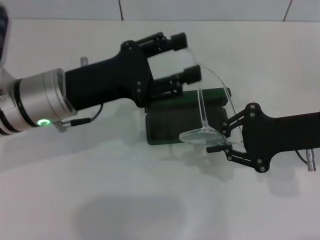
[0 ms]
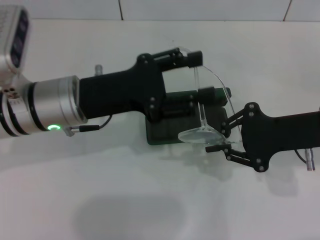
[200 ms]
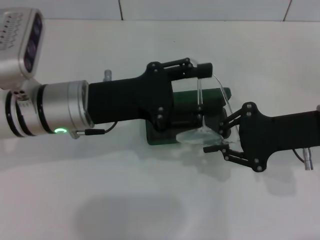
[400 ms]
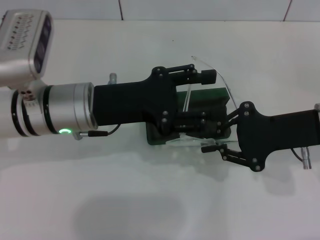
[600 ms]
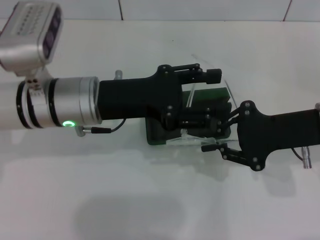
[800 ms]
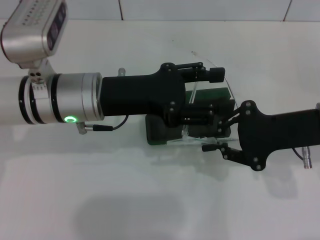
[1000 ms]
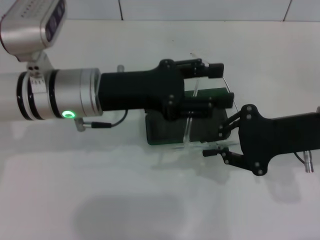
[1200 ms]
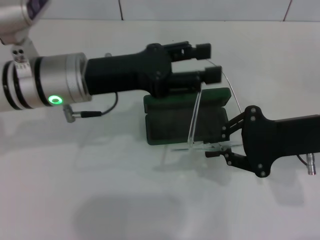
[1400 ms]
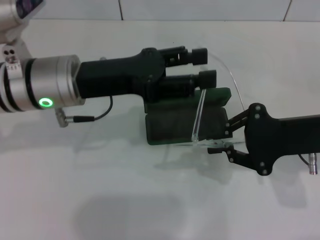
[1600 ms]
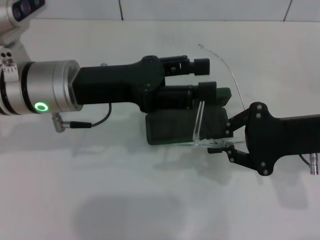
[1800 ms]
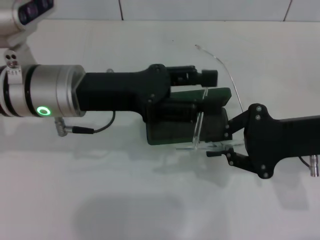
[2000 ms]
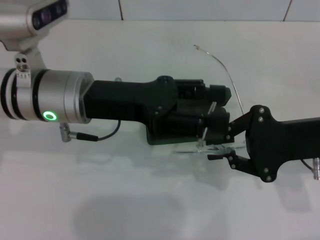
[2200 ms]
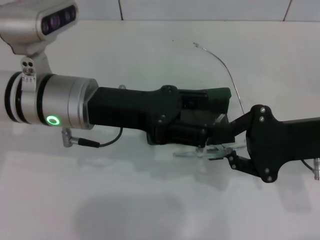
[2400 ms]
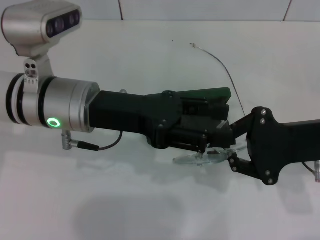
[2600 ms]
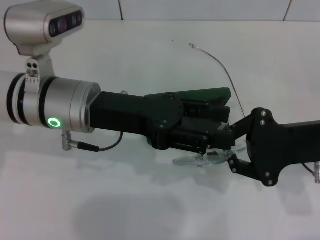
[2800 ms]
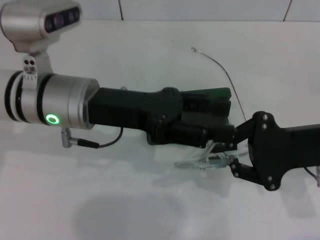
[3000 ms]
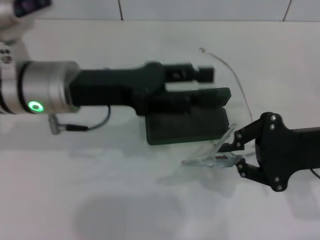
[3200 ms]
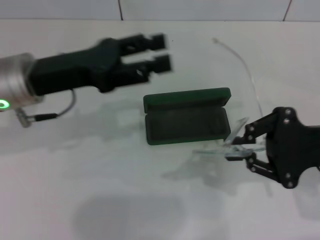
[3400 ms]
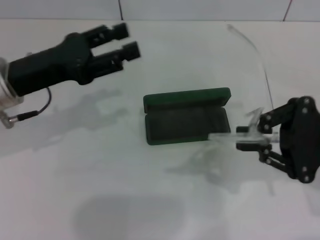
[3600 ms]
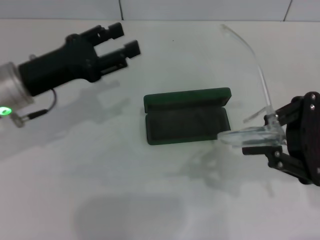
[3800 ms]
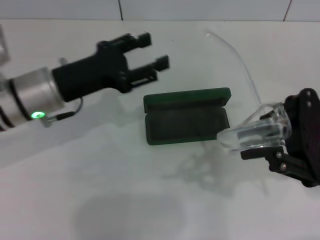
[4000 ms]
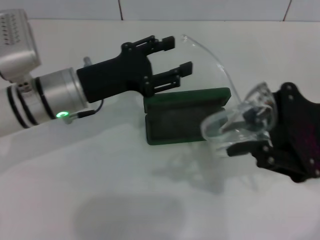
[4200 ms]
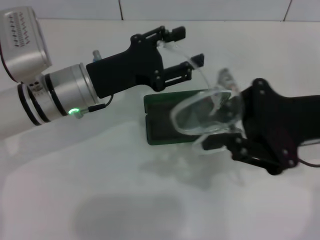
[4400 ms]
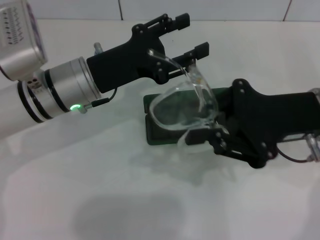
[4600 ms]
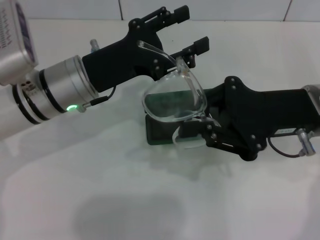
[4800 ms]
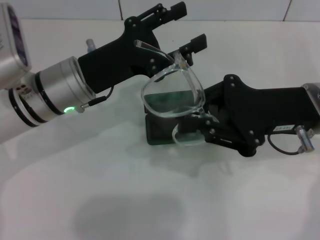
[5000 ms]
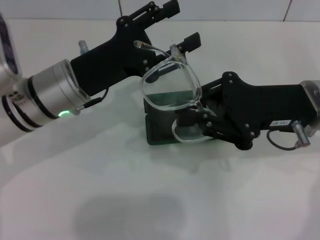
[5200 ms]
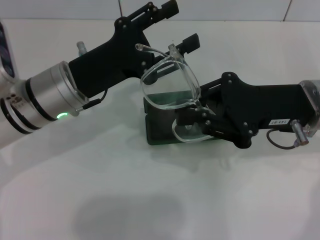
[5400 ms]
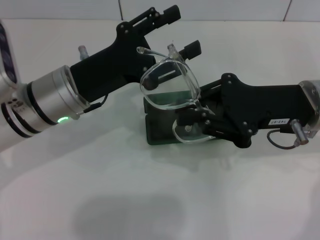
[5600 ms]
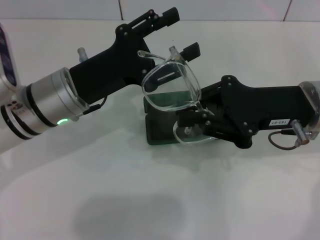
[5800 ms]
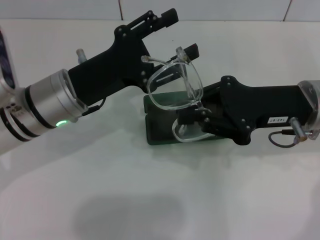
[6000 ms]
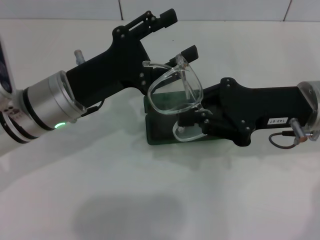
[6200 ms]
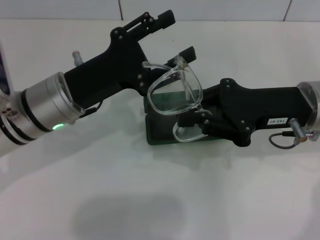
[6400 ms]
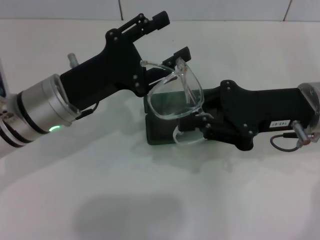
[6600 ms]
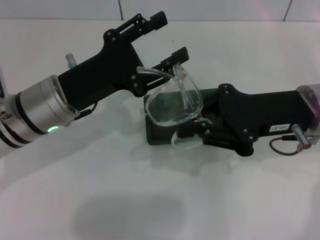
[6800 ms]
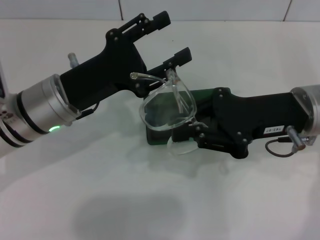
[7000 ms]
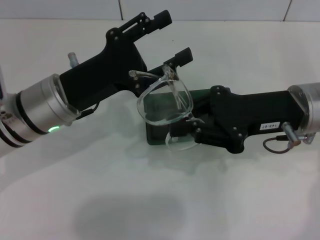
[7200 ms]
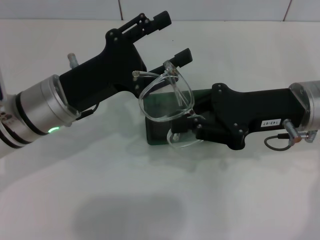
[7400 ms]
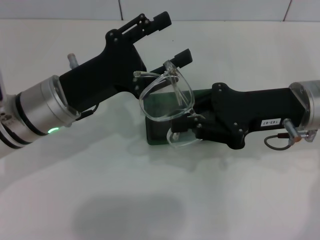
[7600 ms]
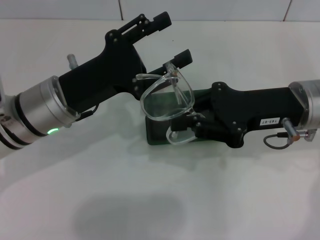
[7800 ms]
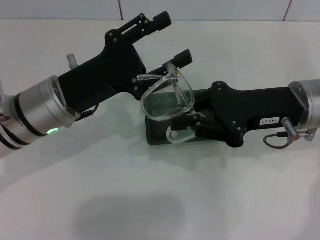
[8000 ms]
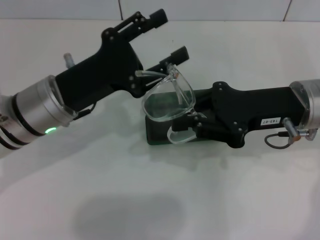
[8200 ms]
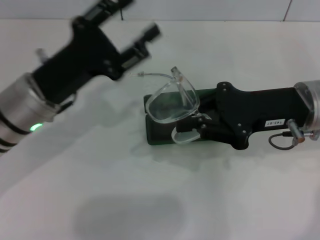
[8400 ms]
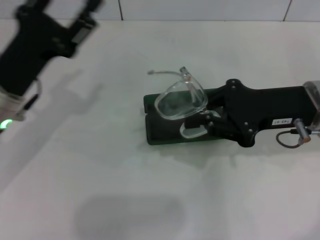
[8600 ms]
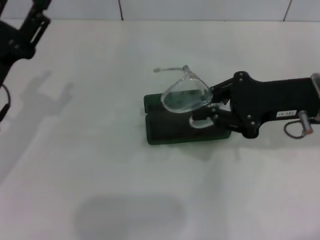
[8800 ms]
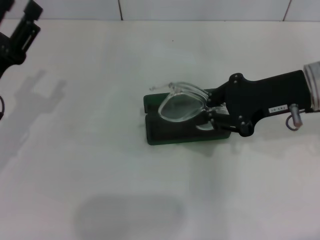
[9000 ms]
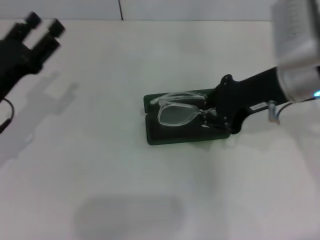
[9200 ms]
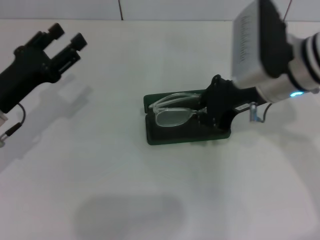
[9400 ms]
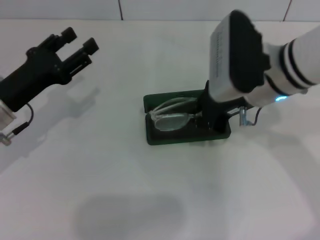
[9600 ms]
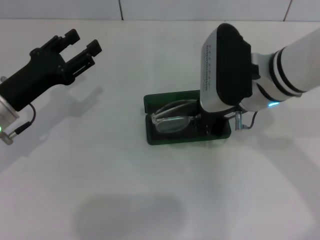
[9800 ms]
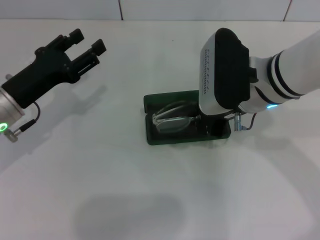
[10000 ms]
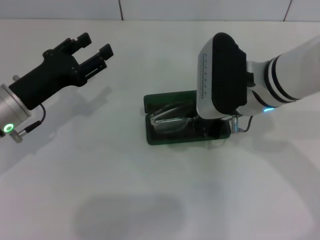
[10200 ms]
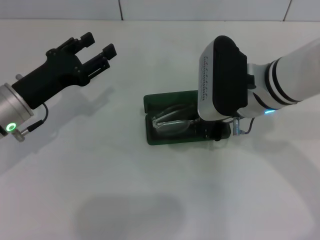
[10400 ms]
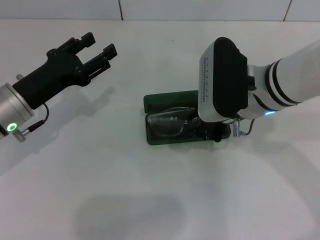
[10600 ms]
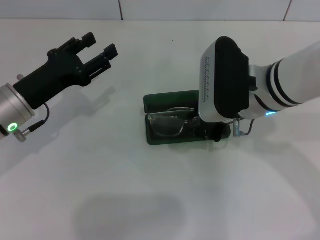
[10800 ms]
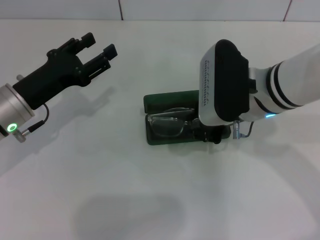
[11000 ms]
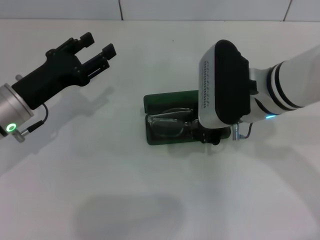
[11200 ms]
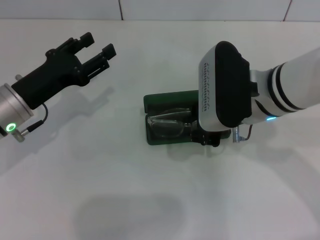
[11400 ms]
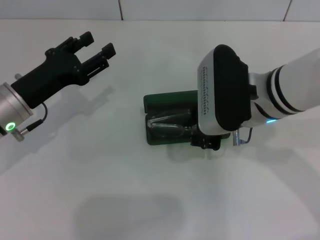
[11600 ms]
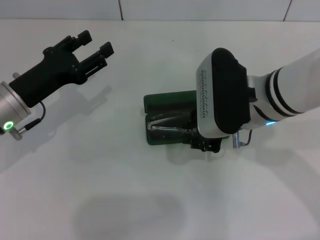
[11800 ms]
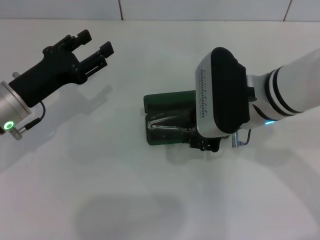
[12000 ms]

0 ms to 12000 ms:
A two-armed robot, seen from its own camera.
Step, 0 ms to 8000 ms: Fold the frame with your left hand.
3000 ms to 4400 ms: The left gripper reaches some 10 cm to the left, then returns.
6000 ms to 7600 ms: The grippers make only small movements.
7600 ms to 9000 ms: The left gripper shifts approximately 10 cm to the left.
9000 ms to 10400 ms: The left gripper moves approximately 5 cm, while the right gripper is displaced to the left by some 10 cm.
10400 ms to 12000 ms: The grippers stay close to where they were, moving slightly.

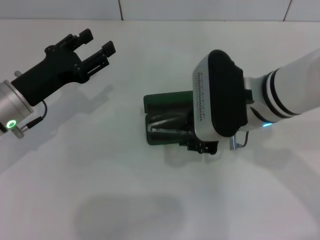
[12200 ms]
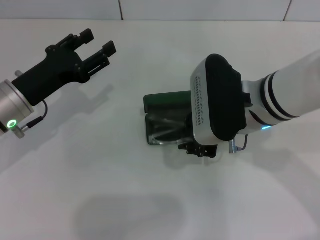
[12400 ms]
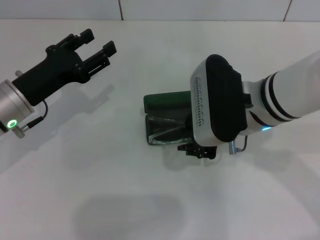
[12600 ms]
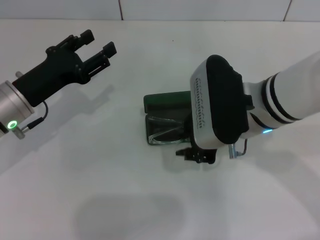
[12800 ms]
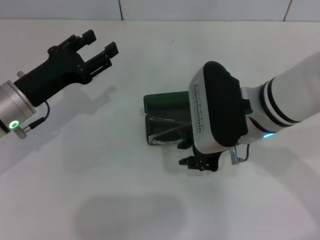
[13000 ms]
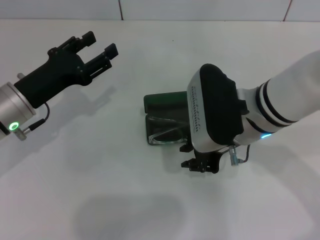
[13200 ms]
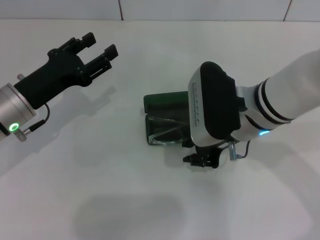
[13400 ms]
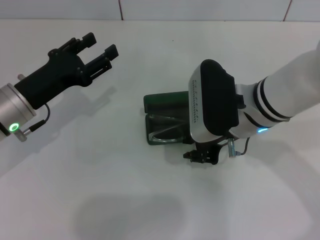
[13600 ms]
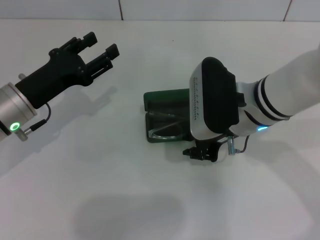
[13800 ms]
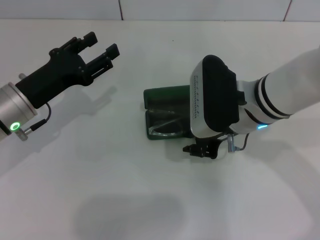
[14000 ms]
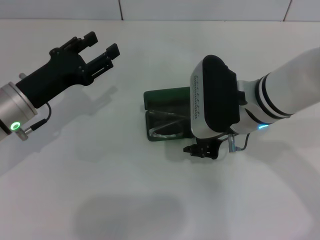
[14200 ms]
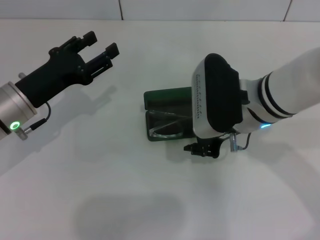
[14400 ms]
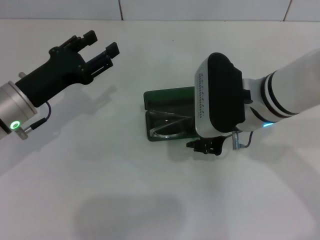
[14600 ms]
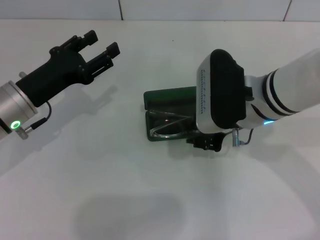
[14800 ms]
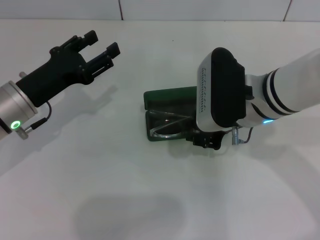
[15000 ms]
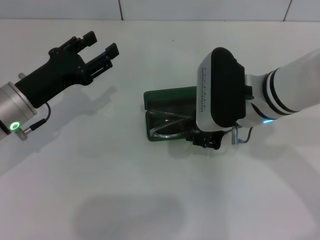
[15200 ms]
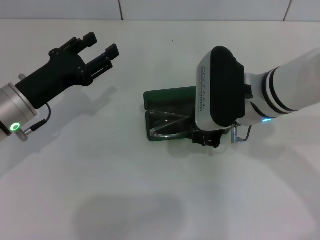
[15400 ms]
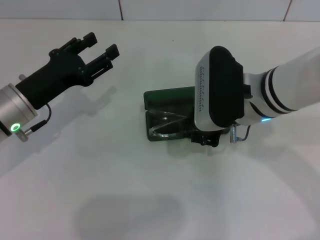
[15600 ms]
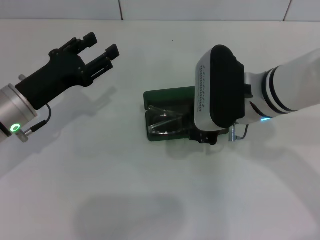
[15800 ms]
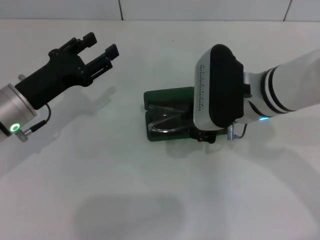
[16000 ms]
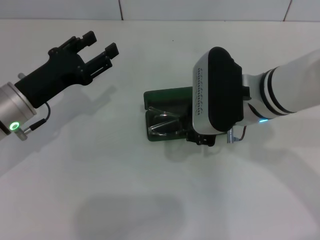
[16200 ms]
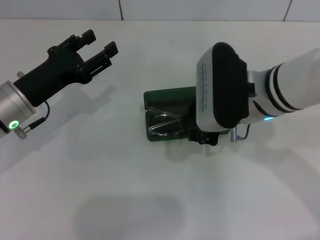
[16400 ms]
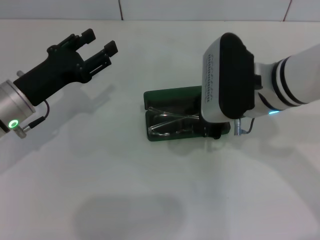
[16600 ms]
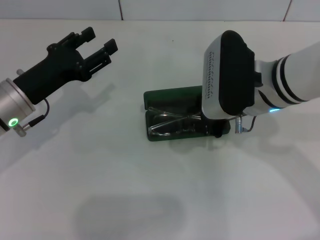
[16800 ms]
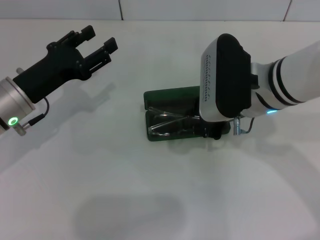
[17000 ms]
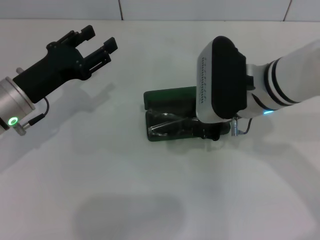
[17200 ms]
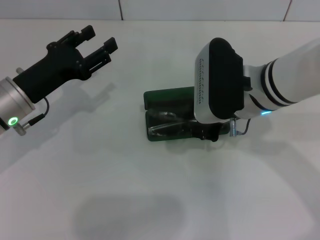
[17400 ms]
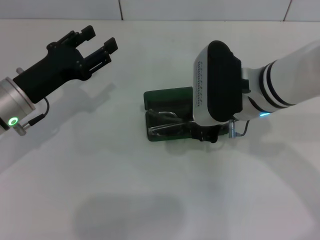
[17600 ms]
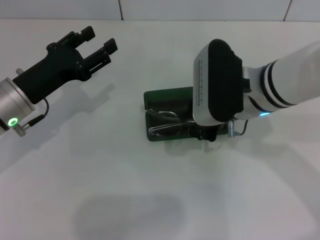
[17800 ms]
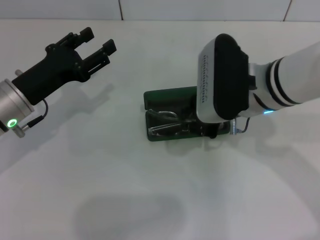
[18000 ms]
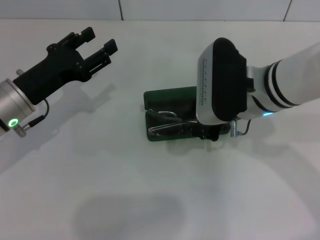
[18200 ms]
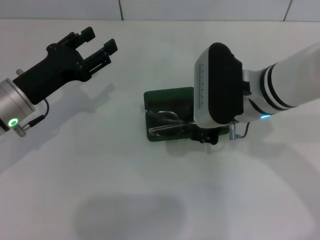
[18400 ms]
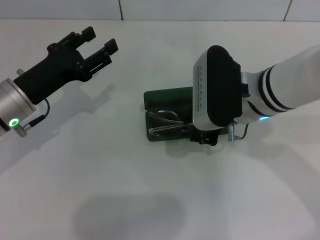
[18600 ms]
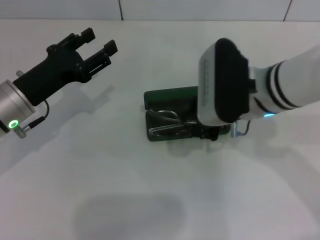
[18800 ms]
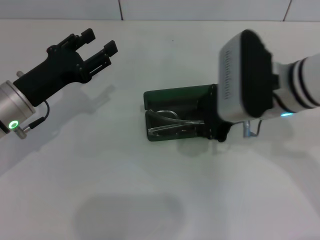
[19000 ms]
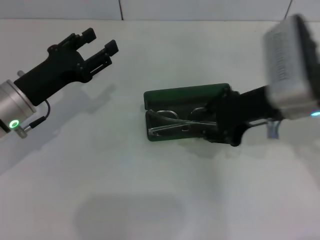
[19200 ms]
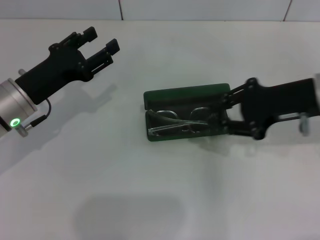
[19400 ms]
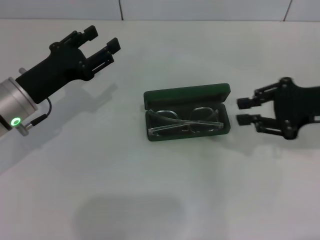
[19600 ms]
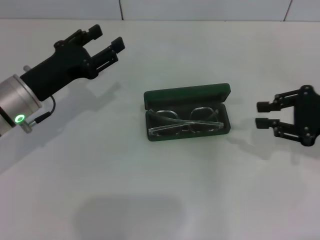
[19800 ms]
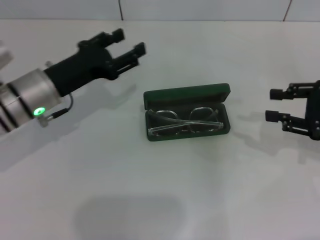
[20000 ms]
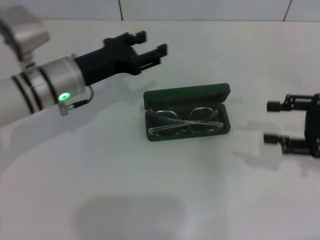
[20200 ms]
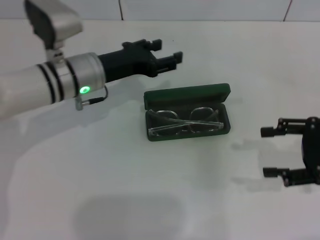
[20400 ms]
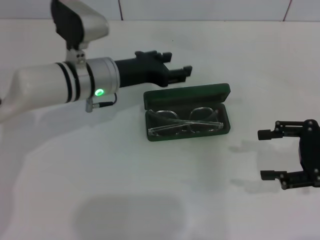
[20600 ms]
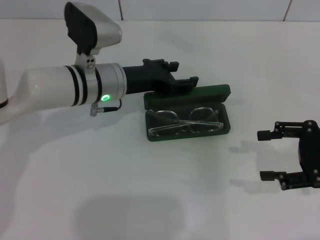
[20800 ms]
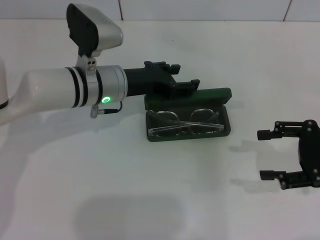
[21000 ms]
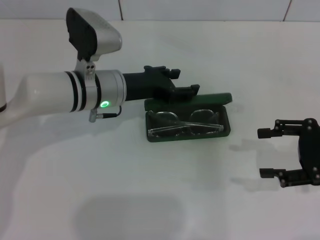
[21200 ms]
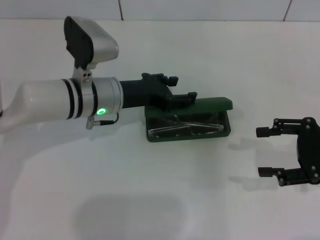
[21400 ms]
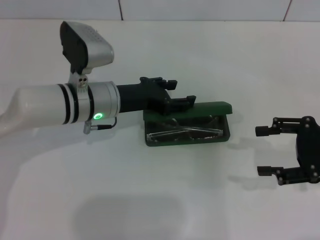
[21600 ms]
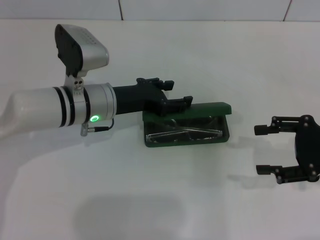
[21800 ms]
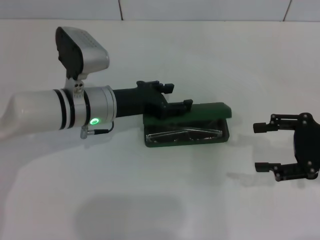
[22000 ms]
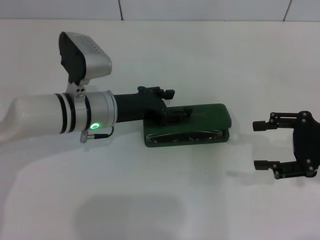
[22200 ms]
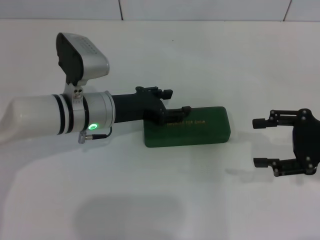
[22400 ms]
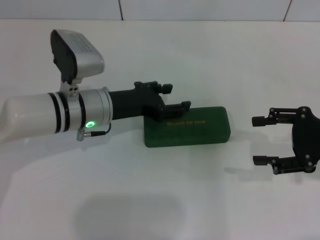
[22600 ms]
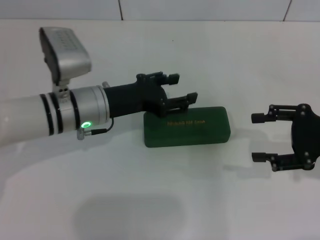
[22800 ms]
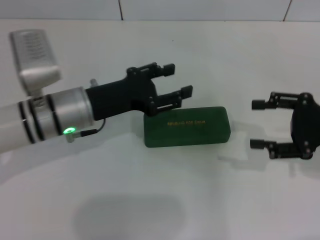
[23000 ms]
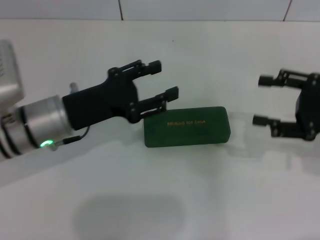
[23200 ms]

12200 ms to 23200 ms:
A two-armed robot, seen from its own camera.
Step, 12200 ms to 18600 ms: Put the glasses into the case with your right hand.
Step, 18800 ms to 22200 ms: Close the glasses case with your left hand.
12200 ms to 17000 ms: The grippers stay close to where they were, moving slightly.
17000 ms to 18400 ms: Neither gripper changes place.
18400 ms to 20000 ms: The right gripper goes about 20 cm to the right.
20000 ms to 21600 ms: The left gripper is displaced to the right by about 5 cm, while the right gripper opens.
21600 ms to 23200 ms: The left gripper goes roughly 10 cm backward and to the left.
